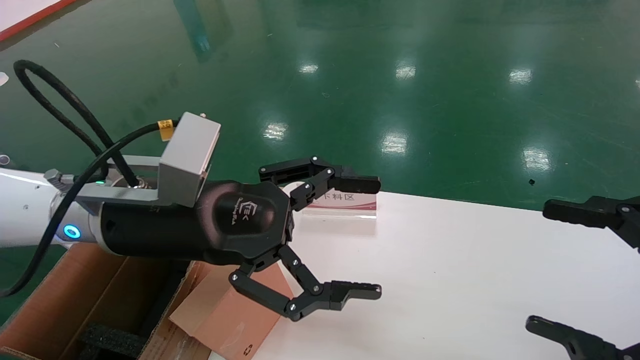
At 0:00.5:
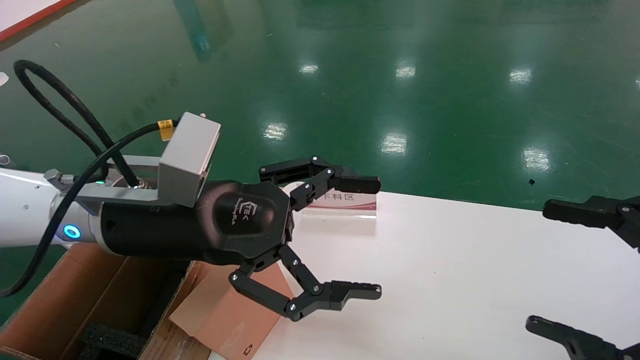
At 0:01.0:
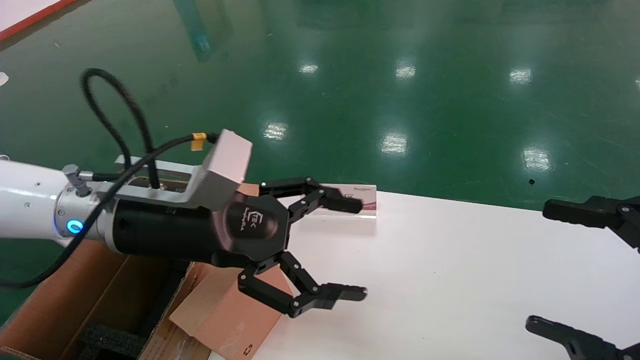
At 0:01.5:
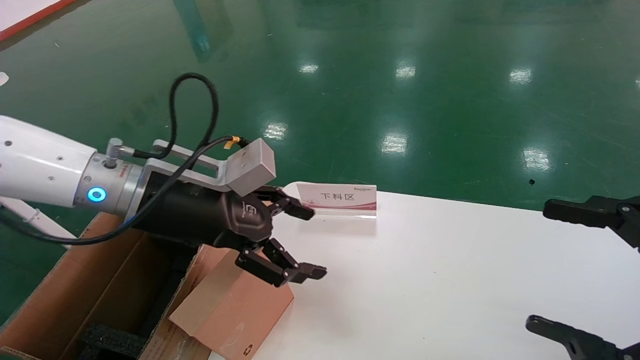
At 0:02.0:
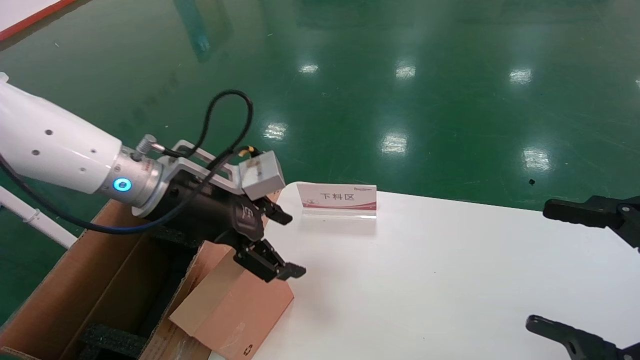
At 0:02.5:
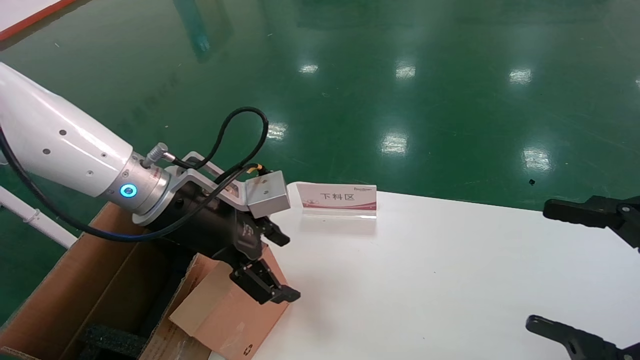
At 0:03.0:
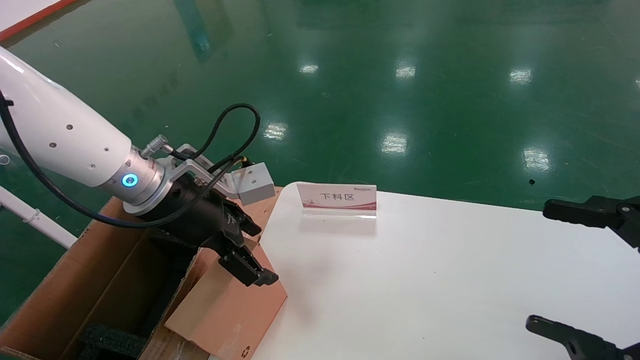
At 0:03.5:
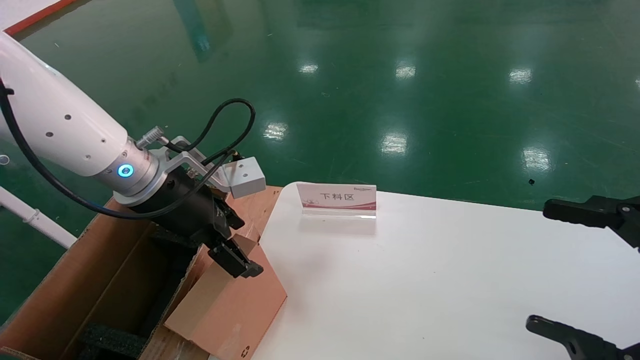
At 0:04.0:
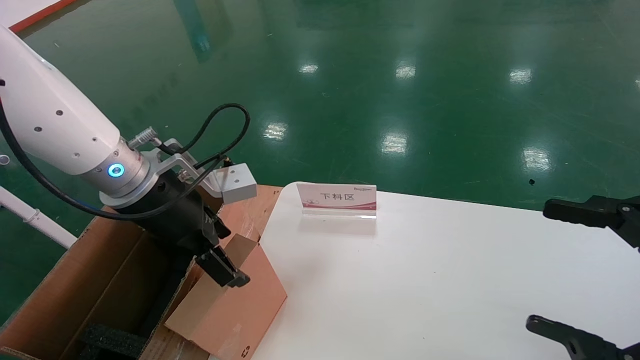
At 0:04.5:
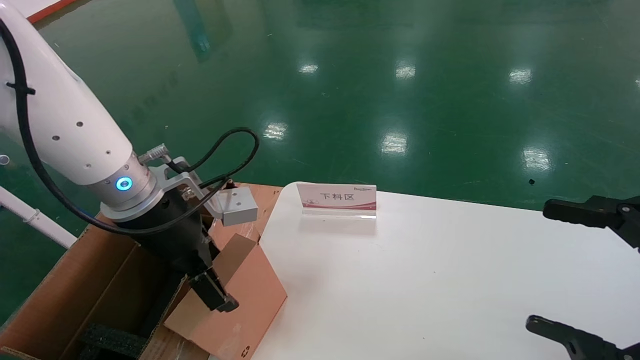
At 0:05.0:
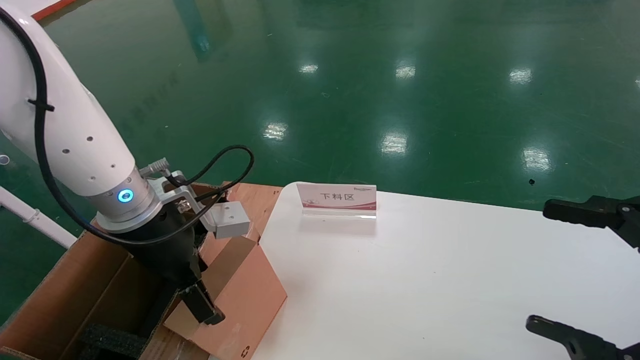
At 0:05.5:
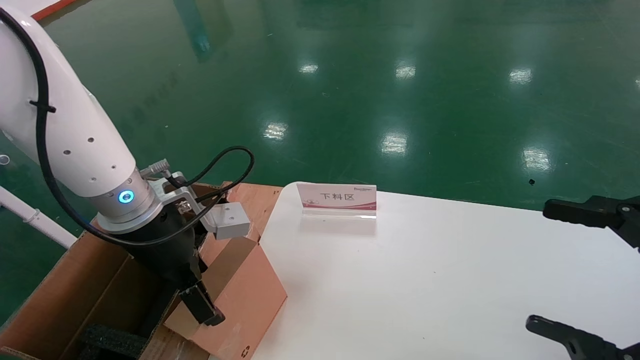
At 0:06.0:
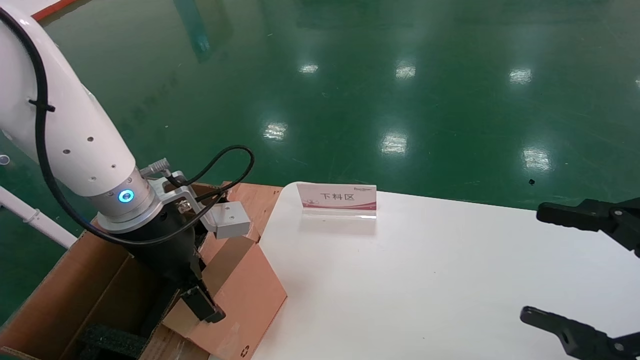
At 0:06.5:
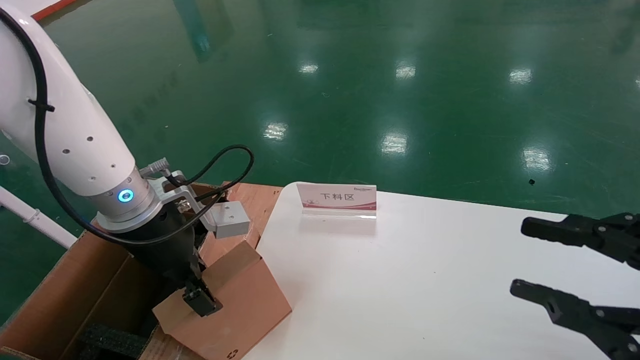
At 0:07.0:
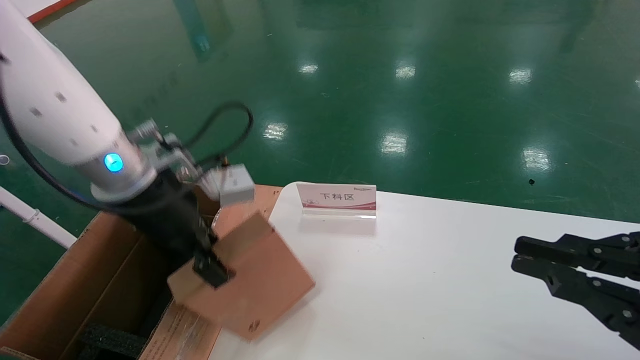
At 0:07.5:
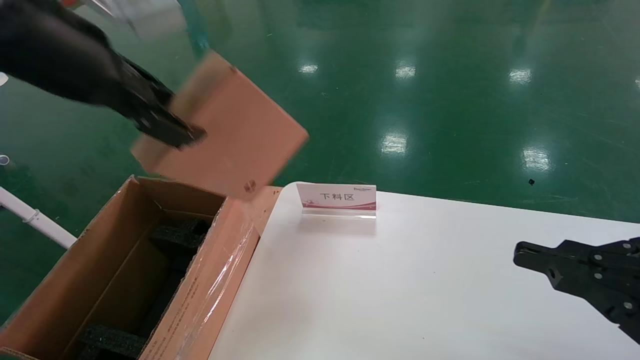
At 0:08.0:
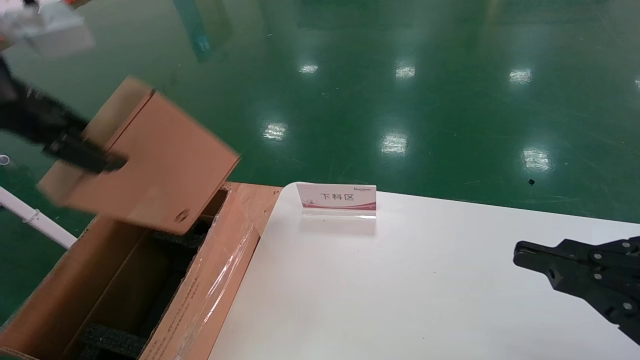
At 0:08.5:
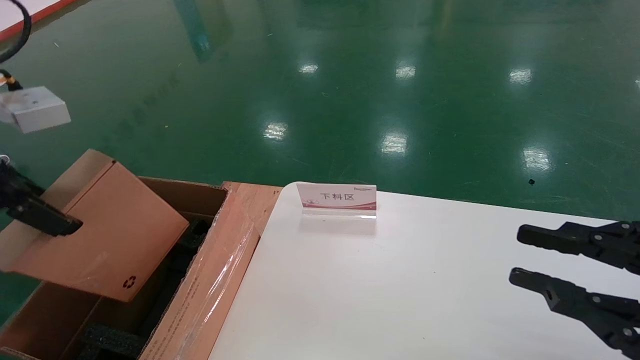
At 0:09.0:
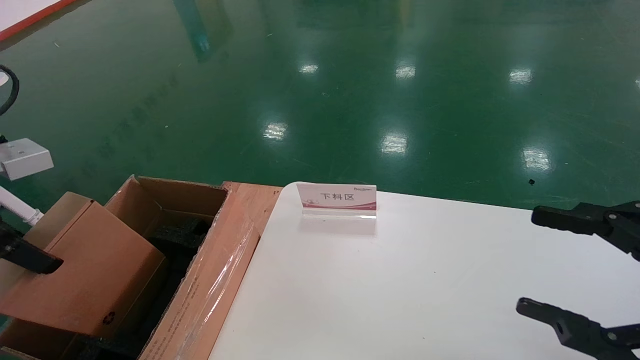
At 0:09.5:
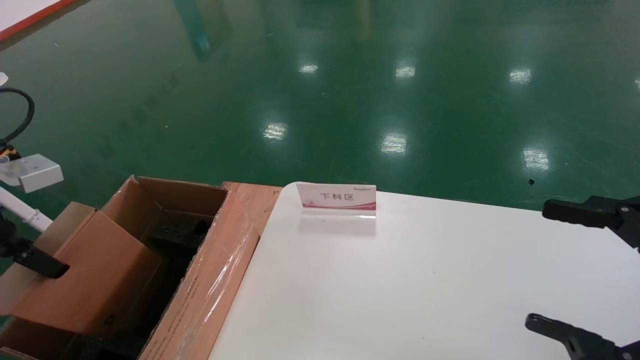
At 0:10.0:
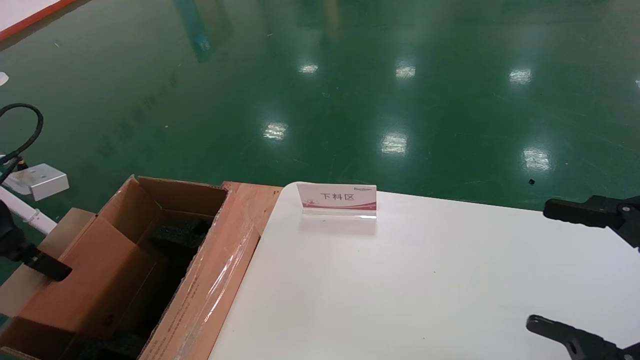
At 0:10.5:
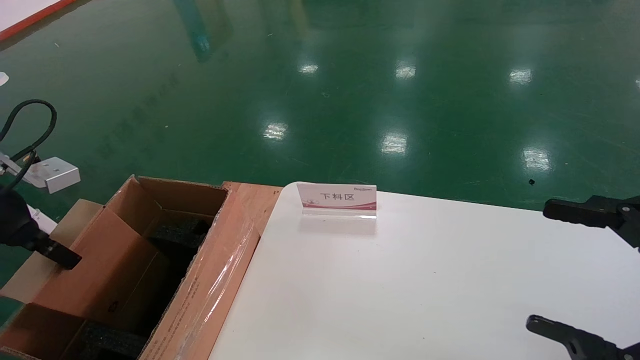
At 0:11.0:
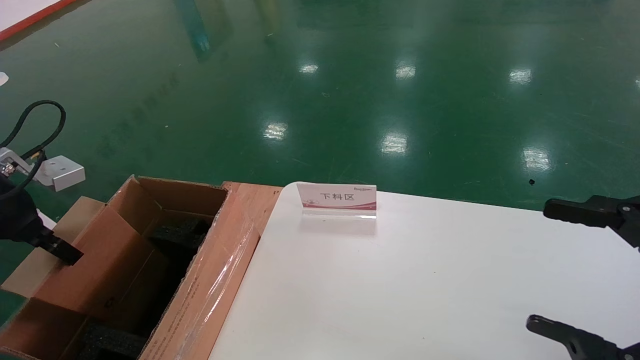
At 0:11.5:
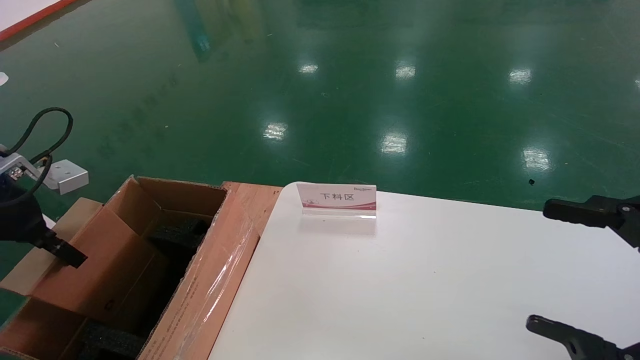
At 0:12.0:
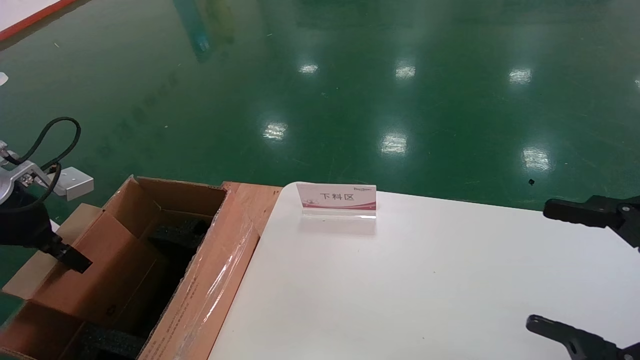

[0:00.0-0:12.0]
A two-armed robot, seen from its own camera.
Task of the whole recording: pick up the small cardboard box and load it into the large cardboard box.
Step, 0:01.0 to 0:06.5: Pick up the mouse and power cord box.
0:00.0 to 0:02.0: The left gripper shifts some 5 cm forward.
0:04.0 to 0:06.0: There are only small adjustments of the grippers.
0:06.0 to 0:08.0: The right gripper closes its fingers. The left gripper shifts approximately 25 cm upward, backward and to the left, and closes its fingers.
0:08.0 to 0:10.0: The left gripper travels downward and to the left by about 20 cm. Meanwhile the right gripper opens its fingers.
0:10.0 to 0:12.0: The left gripper moves about 5 cm.

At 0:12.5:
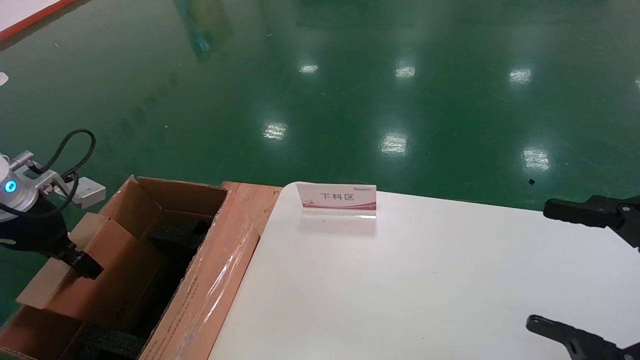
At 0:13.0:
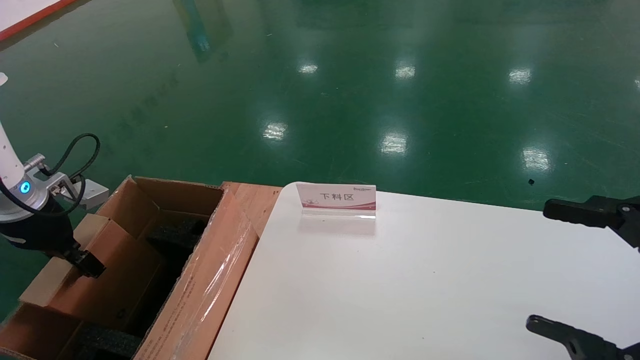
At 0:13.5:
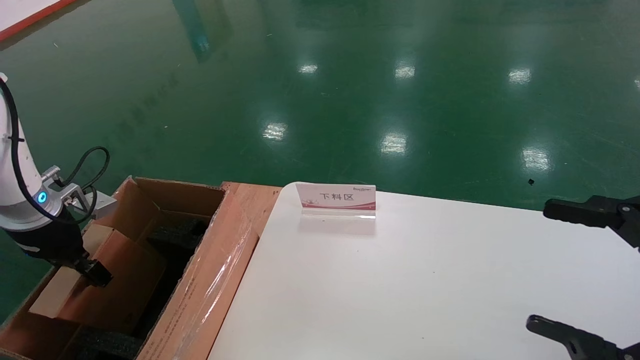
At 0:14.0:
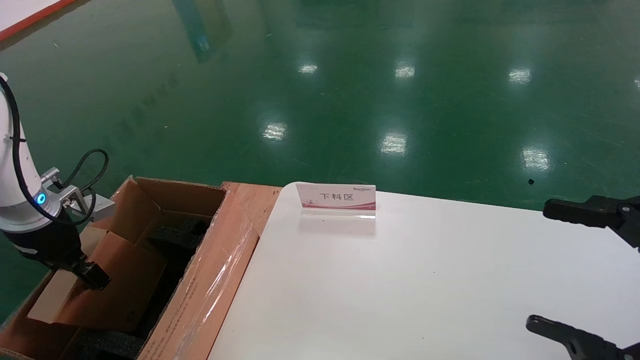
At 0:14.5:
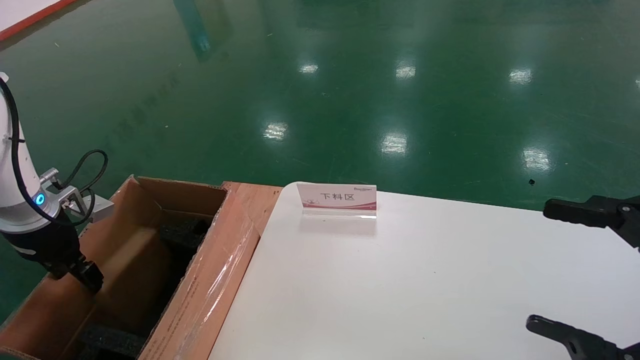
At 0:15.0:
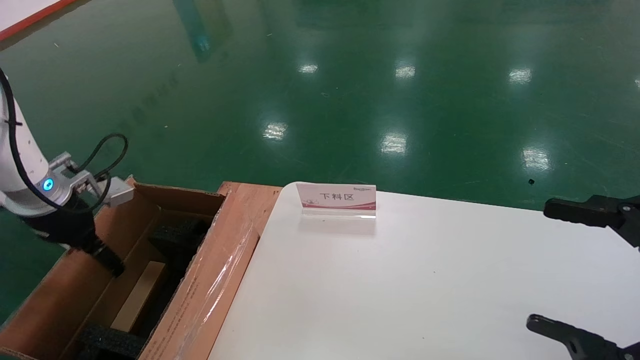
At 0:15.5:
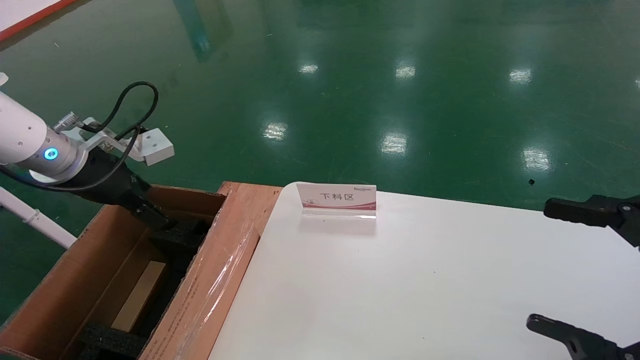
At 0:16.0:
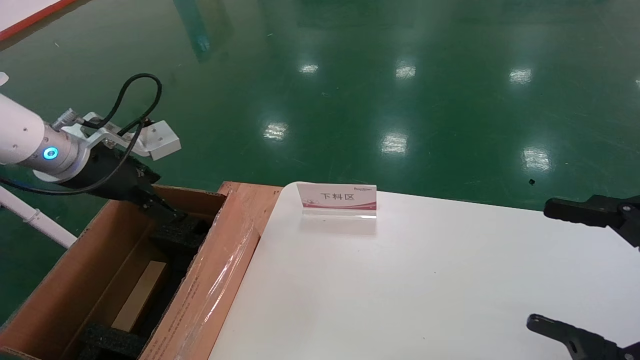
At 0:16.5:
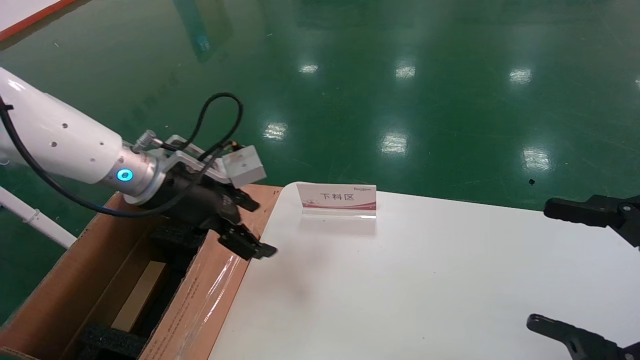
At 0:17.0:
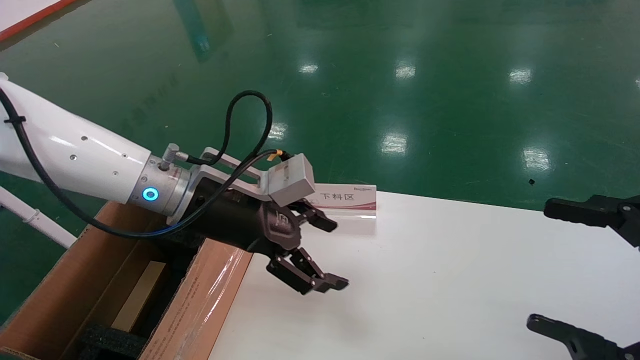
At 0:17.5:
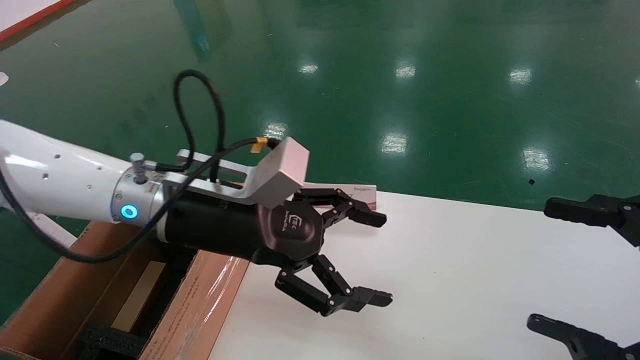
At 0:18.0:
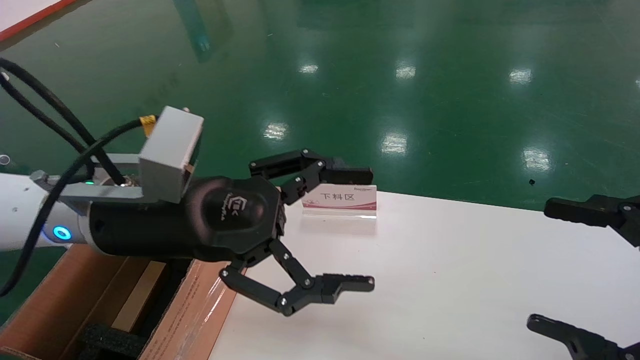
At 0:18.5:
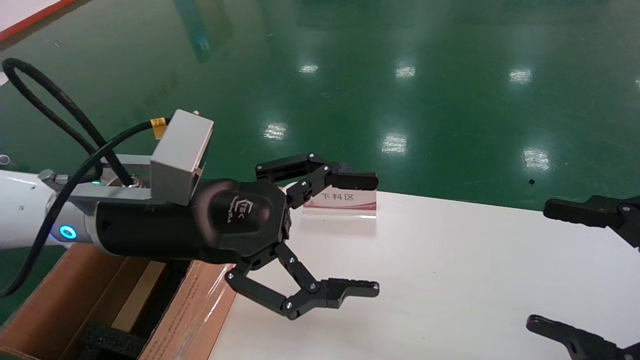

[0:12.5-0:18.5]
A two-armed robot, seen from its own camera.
Task of the whole recording: pick up the small cardboard box and load it into the large cardboard box.
Step, 0:12.5 to 0:14.5: Place the mouse and power cord box into the case.
0:12.5 to 0:14.5: The left gripper opens.
0:14.5 to 0:16.5: The left gripper heads to the right, covering about 20 cm, and opens its fingers.
0:16.5 to 0:18.5: The left gripper heads backward and to the right, covering approximately 10 cm.

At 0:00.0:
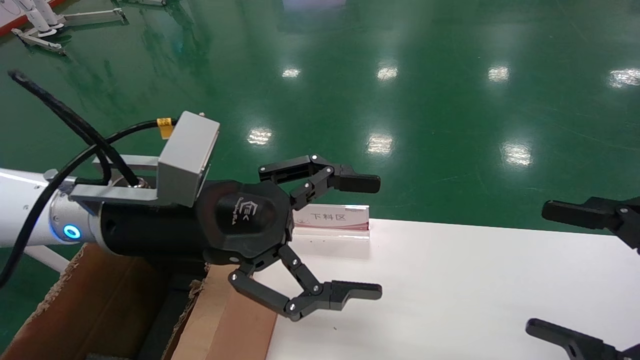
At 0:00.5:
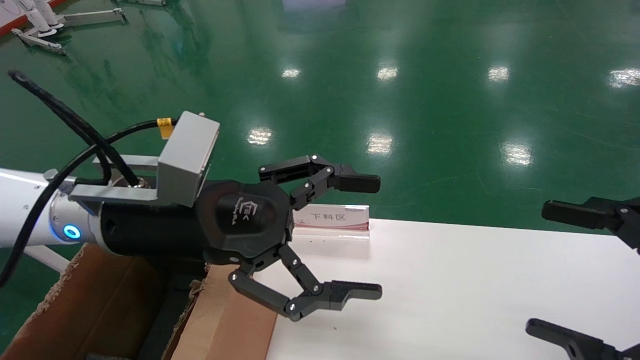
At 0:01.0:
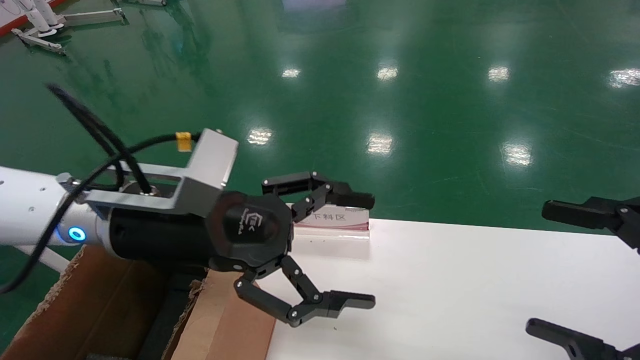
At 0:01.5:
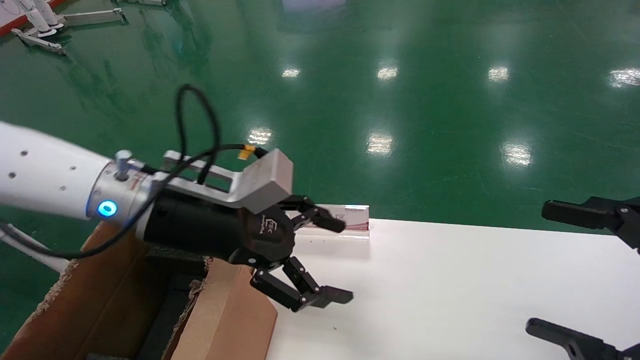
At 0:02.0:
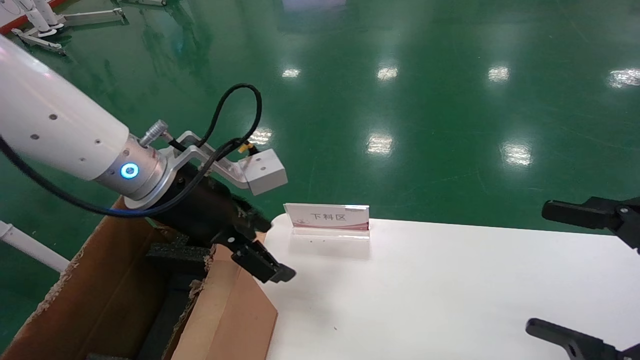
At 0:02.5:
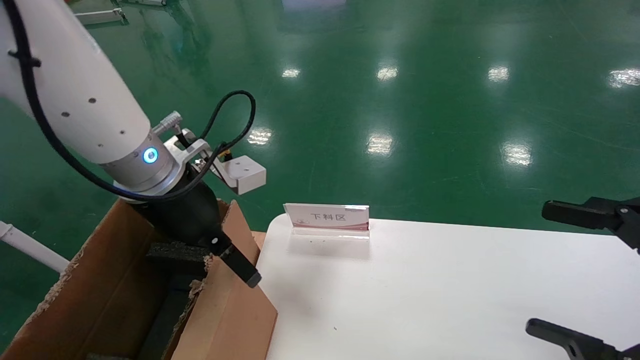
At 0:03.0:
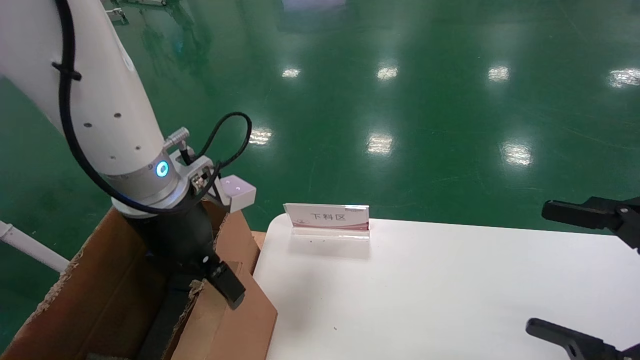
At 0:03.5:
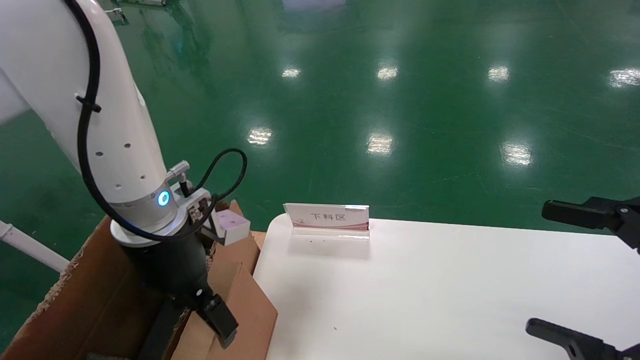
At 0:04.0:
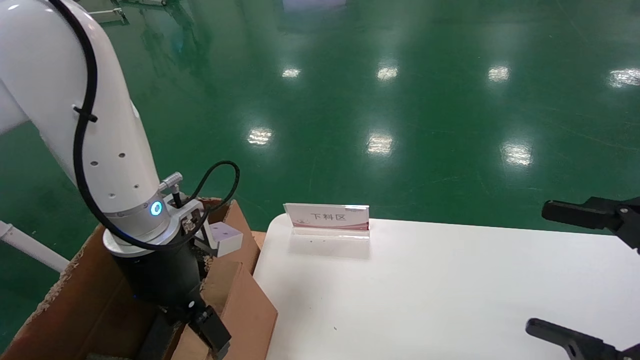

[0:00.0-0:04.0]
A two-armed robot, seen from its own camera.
Task of the whole recording: pick up the small cardboard box and load it into the large cardboard box.
0:00.0 to 0:02.0: The left gripper shifts about 5 cm forward.
